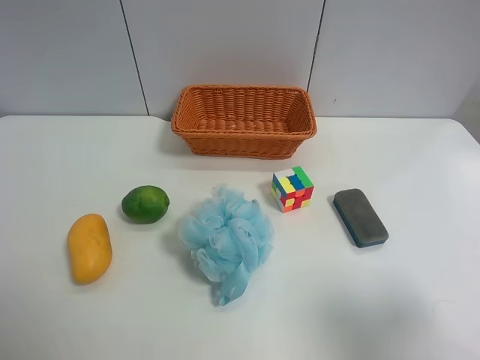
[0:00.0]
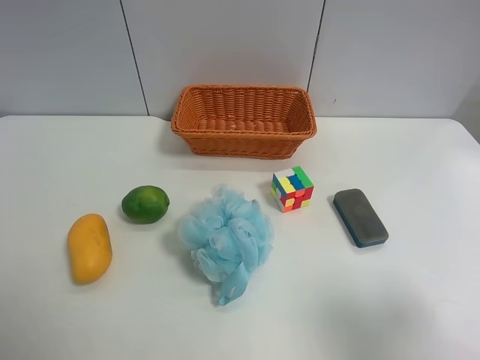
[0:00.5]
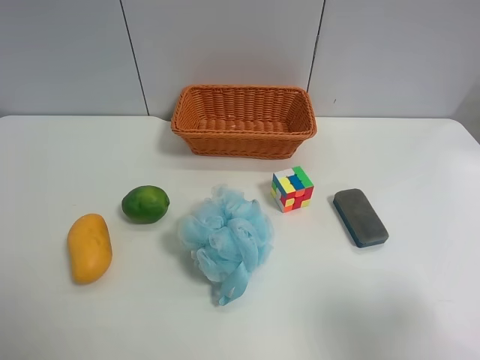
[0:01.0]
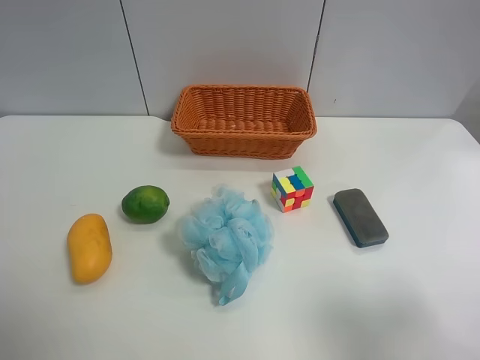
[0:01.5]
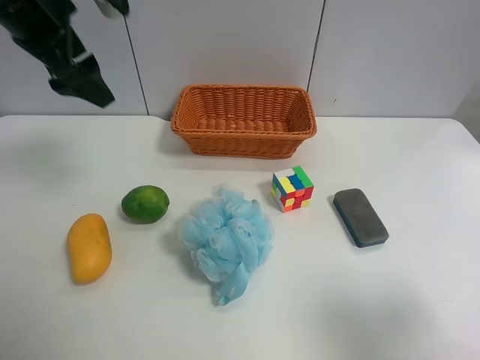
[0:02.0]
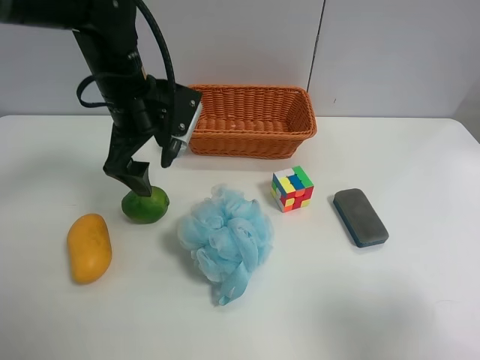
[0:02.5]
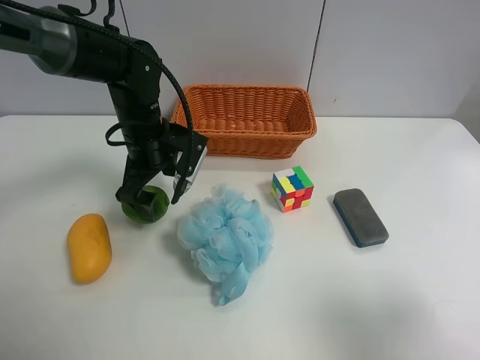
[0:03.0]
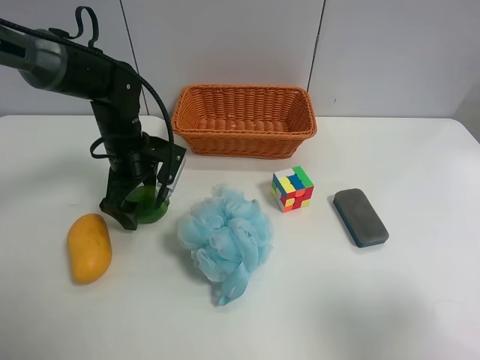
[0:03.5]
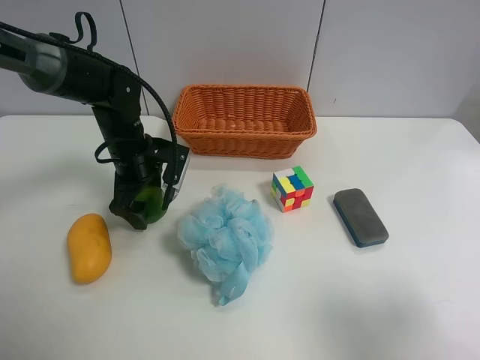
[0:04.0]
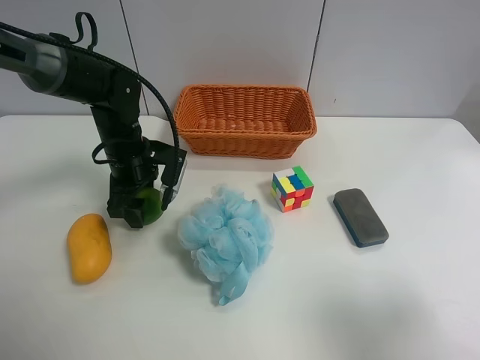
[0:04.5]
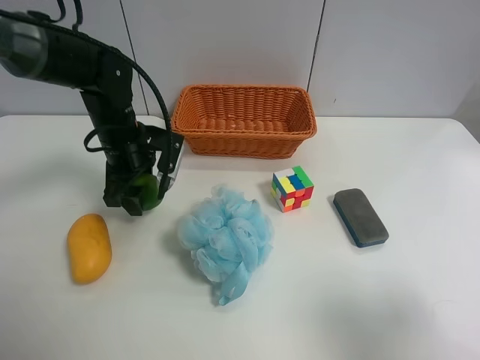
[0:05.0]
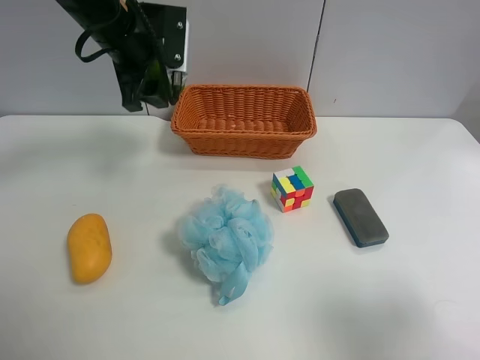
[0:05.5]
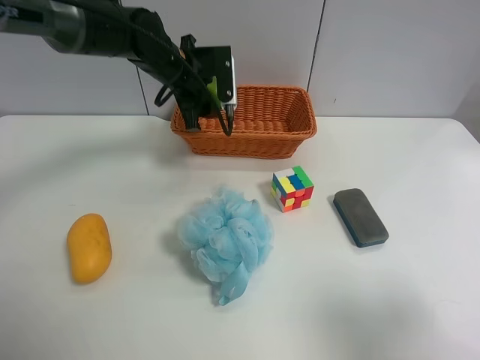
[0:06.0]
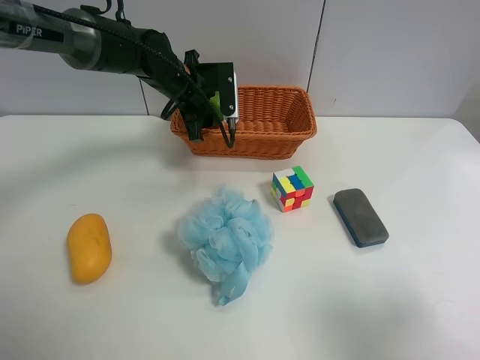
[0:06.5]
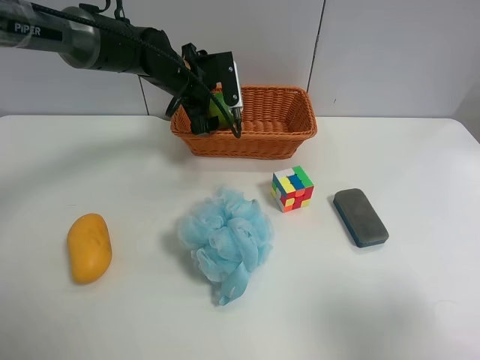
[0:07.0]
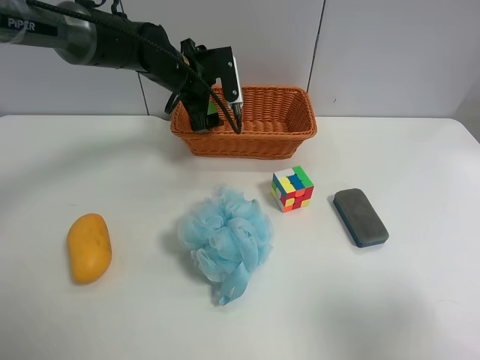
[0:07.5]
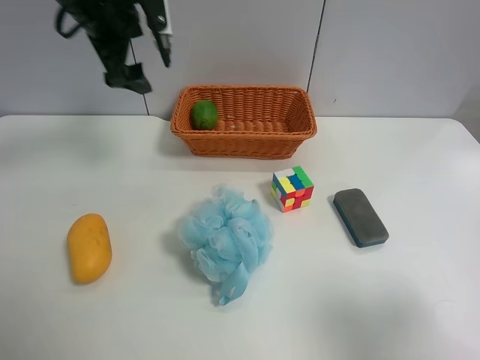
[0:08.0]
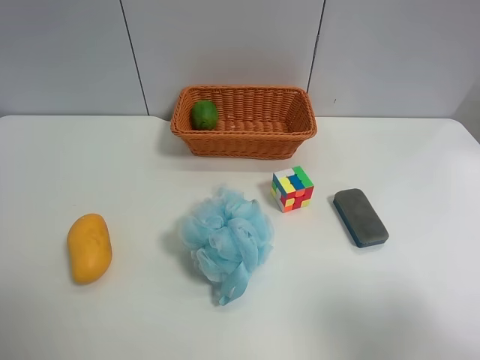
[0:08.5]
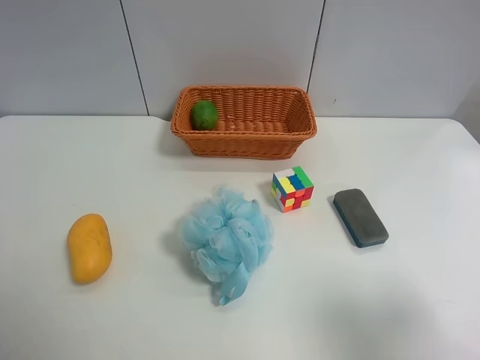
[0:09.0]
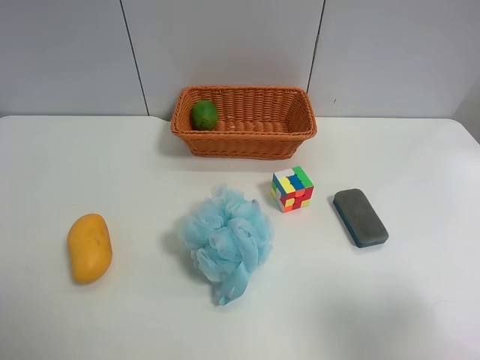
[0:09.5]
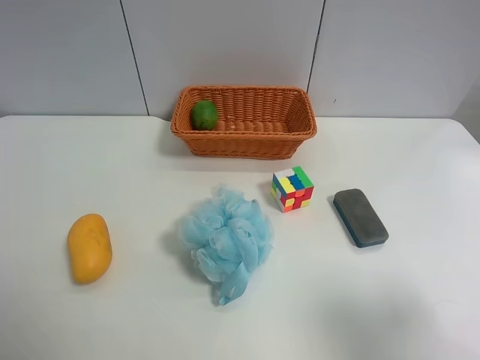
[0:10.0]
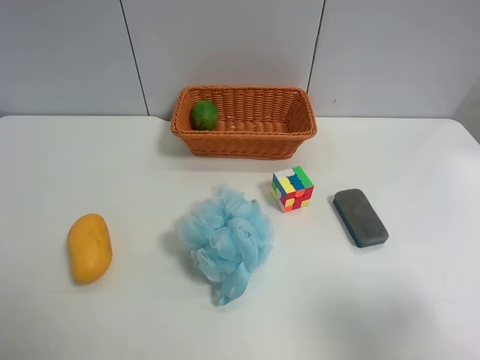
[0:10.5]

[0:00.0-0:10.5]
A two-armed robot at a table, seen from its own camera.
Task of the whole recording: Randomly grab green lemon or mangoes from the table and put them in a basket.
Step, 0:00.0 to 0:04.0: Grasp the Lemon with the left gripper.
Step, 0:04.5 to 0:07.5: Place the Lemon into the basket with the left gripper.
0:00.0 to 0:02.0: The left gripper heads forward, covering roughly 35 cm.
0:02.0 to 0:04.0: The left gripper is displaced downward by about 20 cm, and closes.
0:04.0 to 0:06.5: The left gripper is displaced forward, to the right and upward by some 15 cm, and closes its fingers.
0:06.5 to 0:08.5: The left gripper goes roughly 50 cm upward, backward and to the left, and opens its fingers.

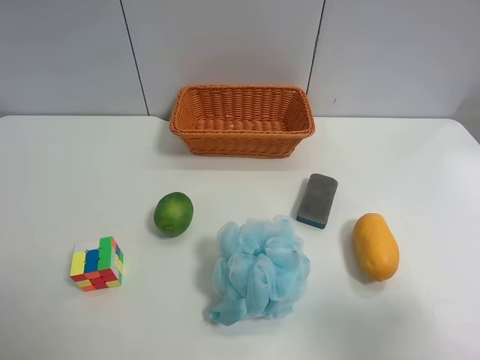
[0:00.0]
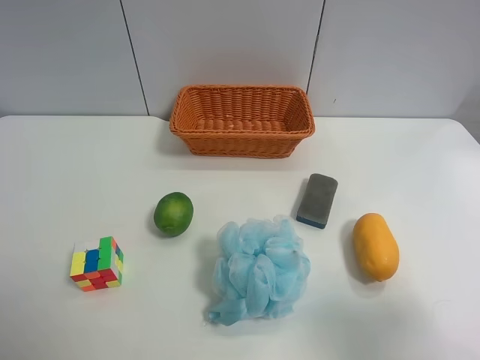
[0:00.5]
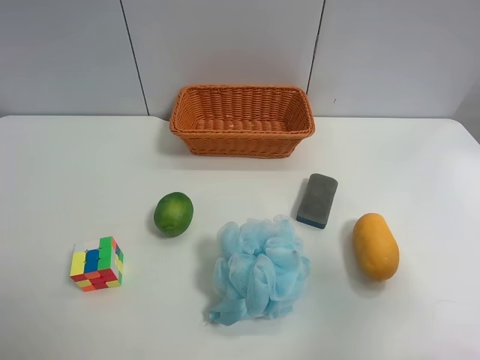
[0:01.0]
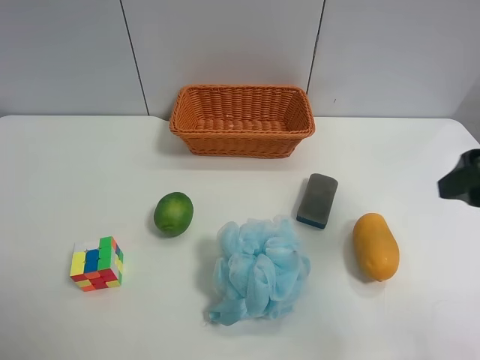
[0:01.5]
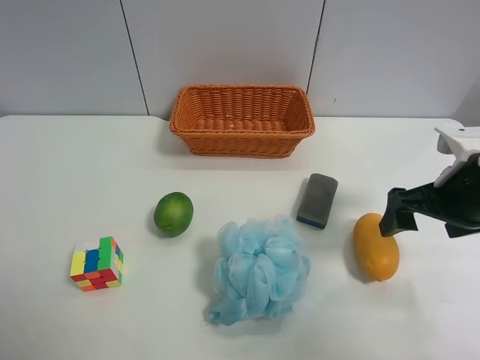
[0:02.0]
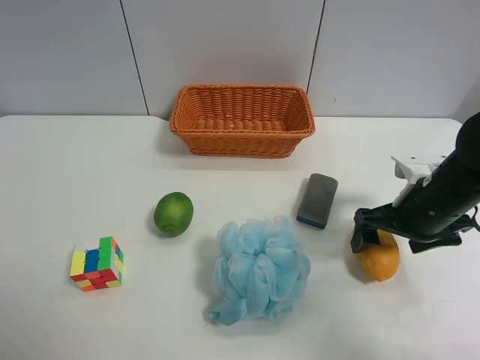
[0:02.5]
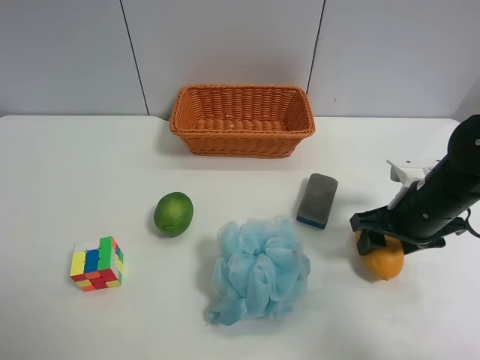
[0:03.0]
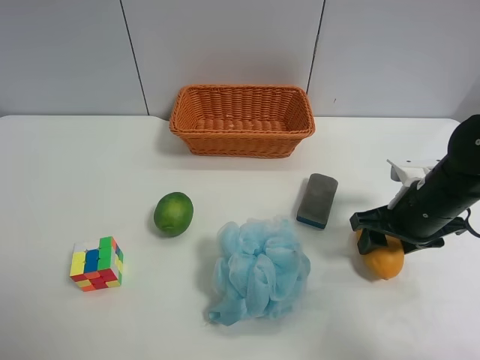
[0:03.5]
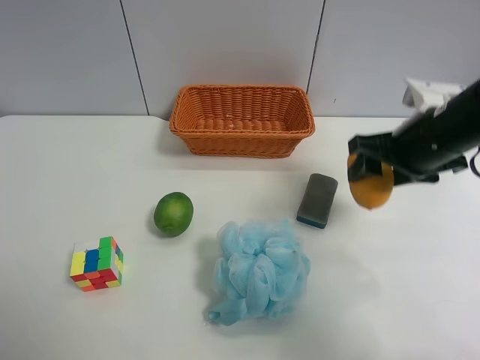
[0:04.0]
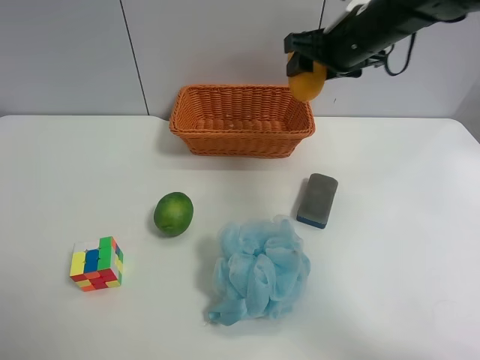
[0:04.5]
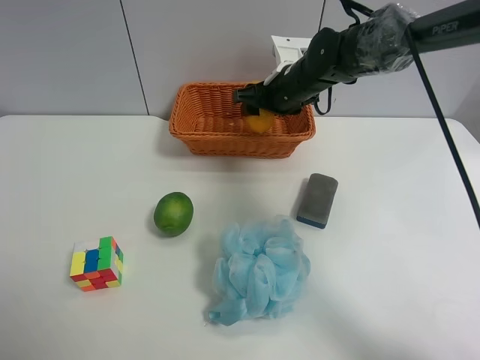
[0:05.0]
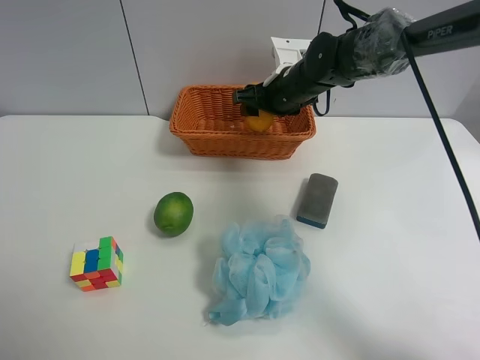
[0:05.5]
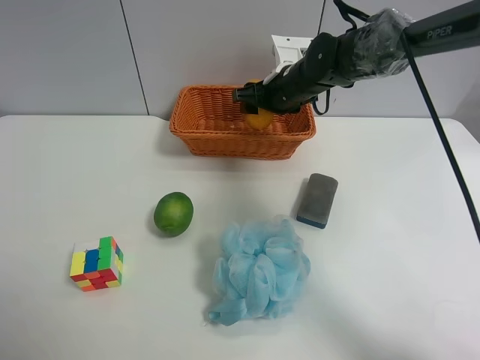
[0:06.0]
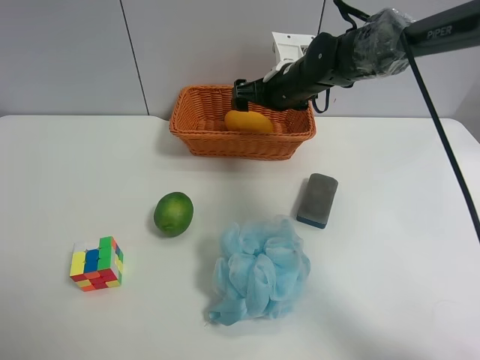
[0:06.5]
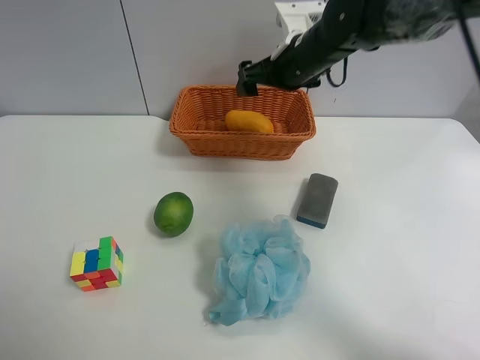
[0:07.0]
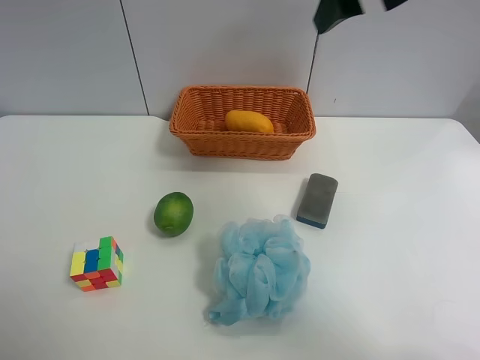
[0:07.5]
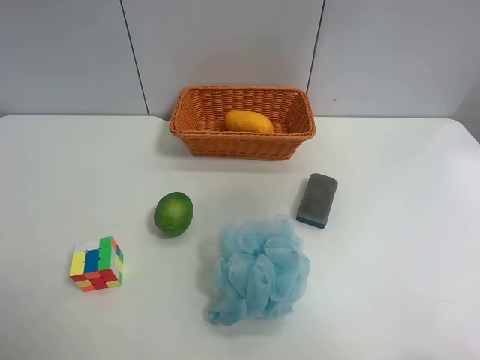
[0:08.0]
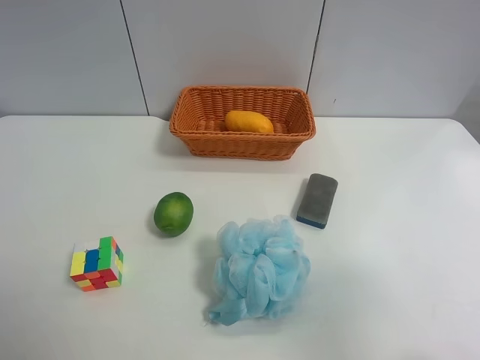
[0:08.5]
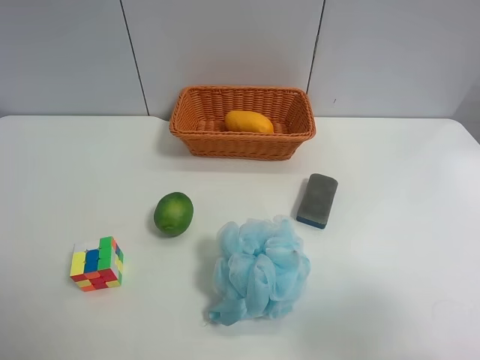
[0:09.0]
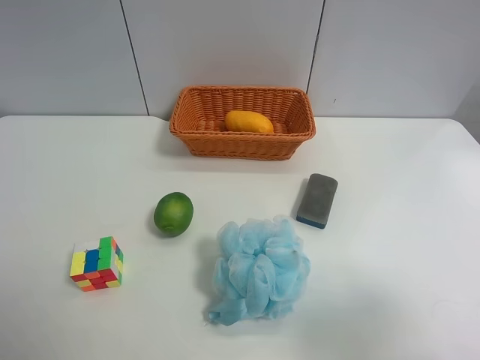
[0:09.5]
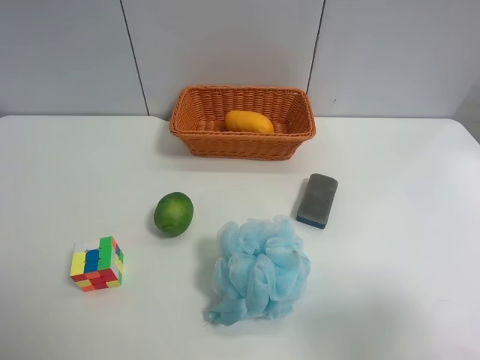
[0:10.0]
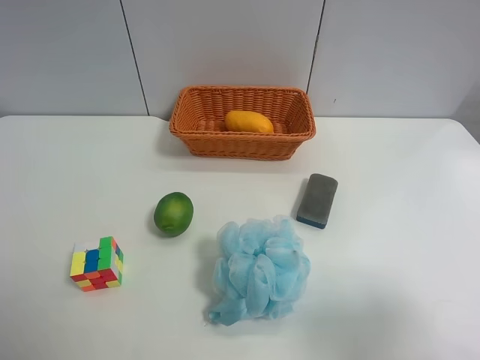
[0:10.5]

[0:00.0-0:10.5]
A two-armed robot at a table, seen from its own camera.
Task of the whole recording: Randomly grab green lemon or mangoes from the table and put them in a basket.
Step, 0:00.0 to 0:03.0: Grasp the mango with the right gripper.
Step, 0:03.5 to 0:07.0: Place the mango into the basket with the right gripper.
0:00.0 to 0:02.0: The right gripper is displaced forward by approximately 20 cm.
0:02.0 to 0:04.0: The right gripper shifts approximately 5 cm forward, and closes.
0:04.0 to 0:06.5: The right gripper shifts some 20 cm forward and to the left, and opens its fingers.
0:06.5 to 0:08.5: The right gripper goes approximately 50 cm backward and to the right.
0:08.5 to 0:10.5: The grippers make only small movements.

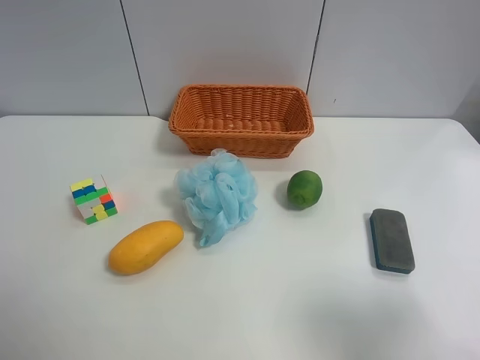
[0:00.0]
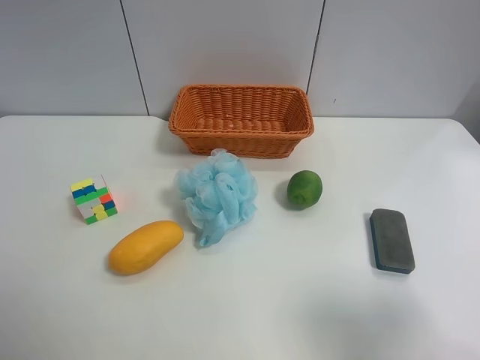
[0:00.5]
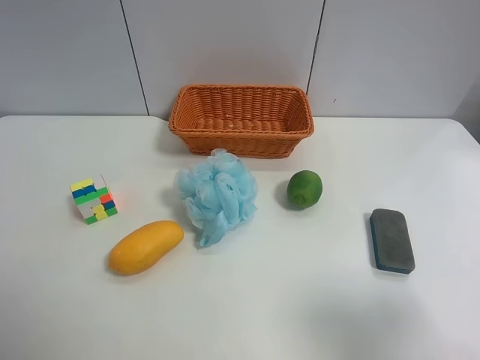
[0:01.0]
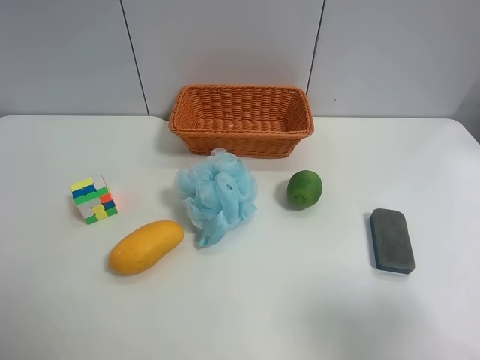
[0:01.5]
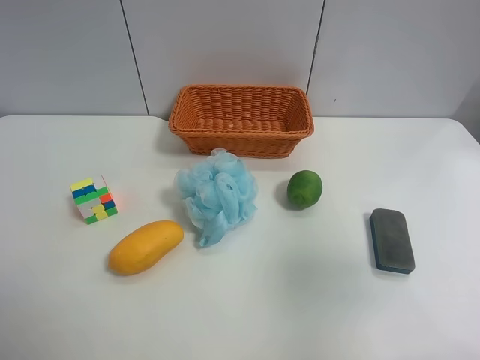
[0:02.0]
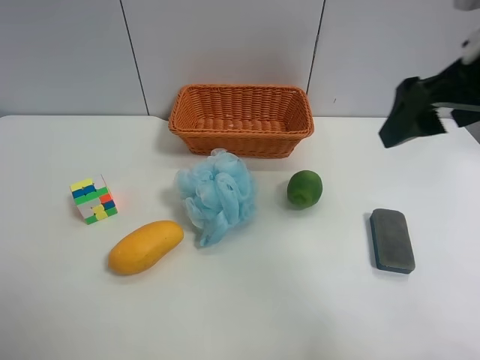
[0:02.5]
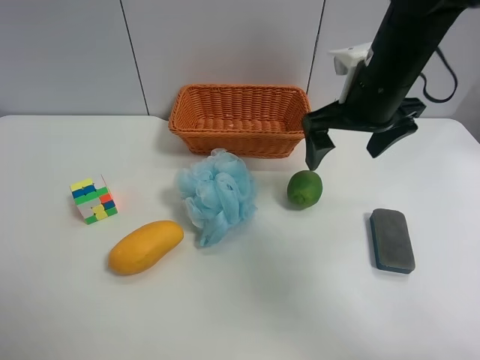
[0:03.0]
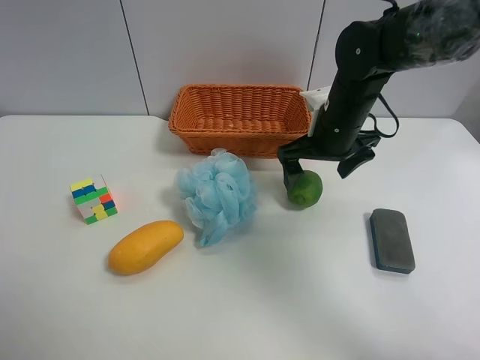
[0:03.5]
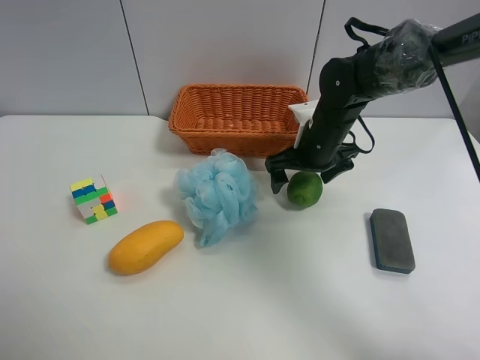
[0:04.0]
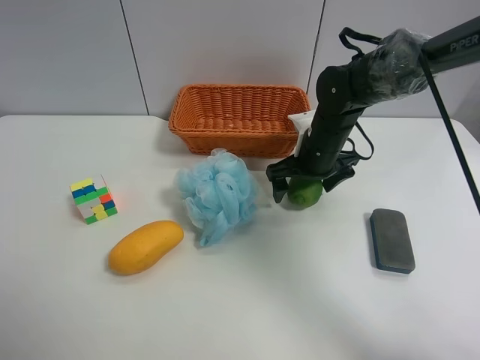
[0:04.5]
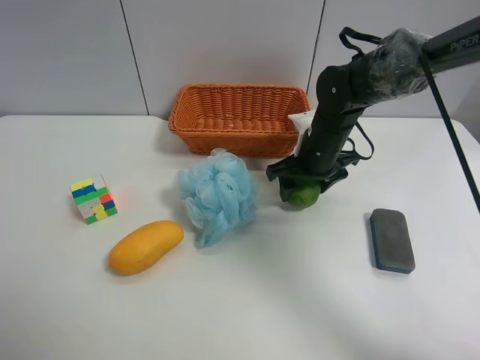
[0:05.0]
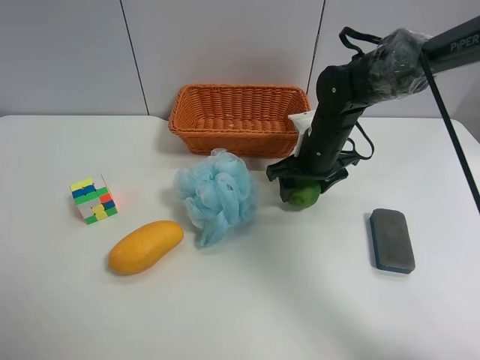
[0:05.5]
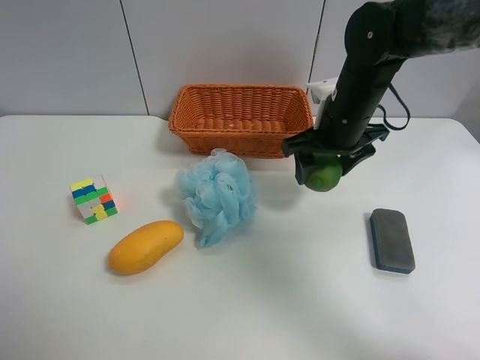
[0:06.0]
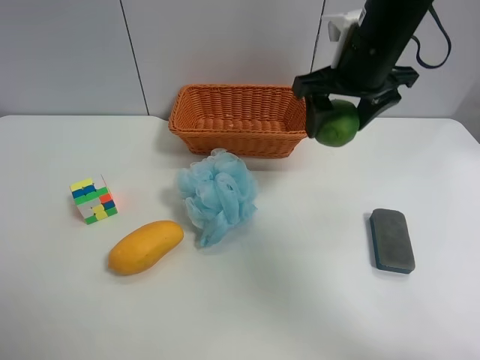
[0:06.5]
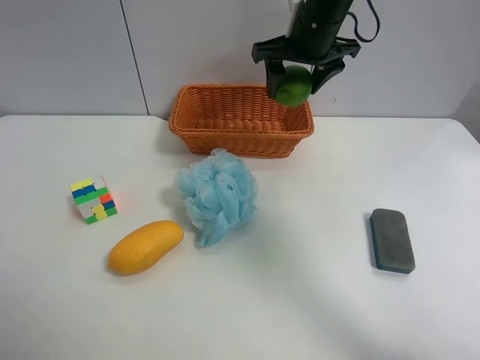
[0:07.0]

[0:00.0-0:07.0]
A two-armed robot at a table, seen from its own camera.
Task of the whole recording: Randomly grab green lemon or mangoes from the table and put them in a basket.
Step, 0:00.0 to 0:05.0: Grasp the Lemon with the right gripper.
0:00.0 to 0:02.0: The right gripper goes roughly 10 cm forward and upward.
0:02.0 to 0:03.5: The right gripper moves forward, downward and to the left, approximately 35 cm.
0:03.5 to 0:05.0: The right gripper closes up.
0:05.0 to 0:07.0: The right gripper heads upward and forward, covering some 15 cm.
